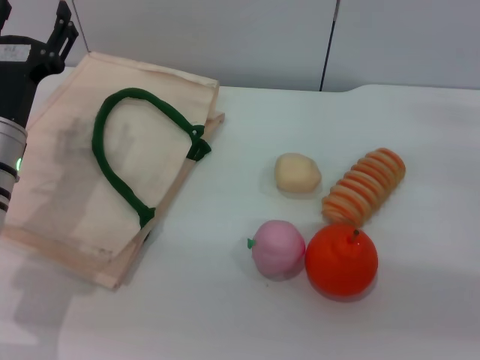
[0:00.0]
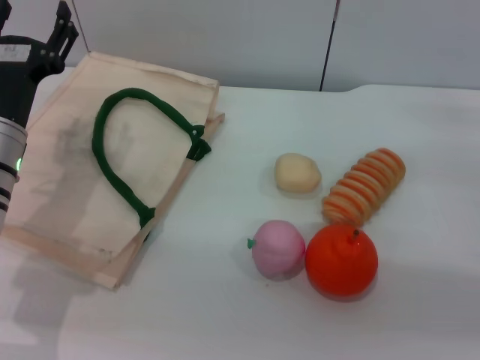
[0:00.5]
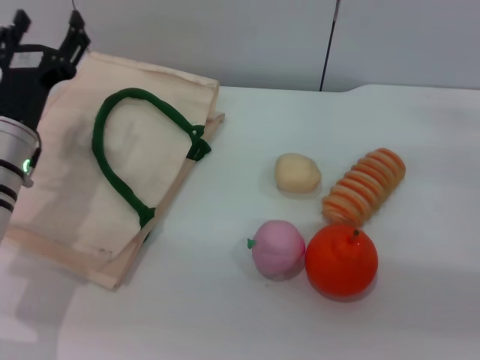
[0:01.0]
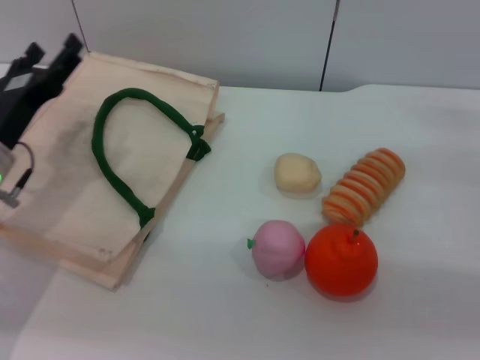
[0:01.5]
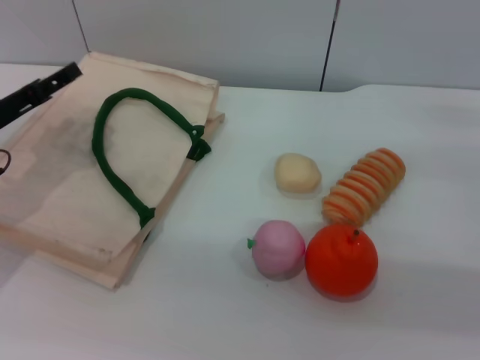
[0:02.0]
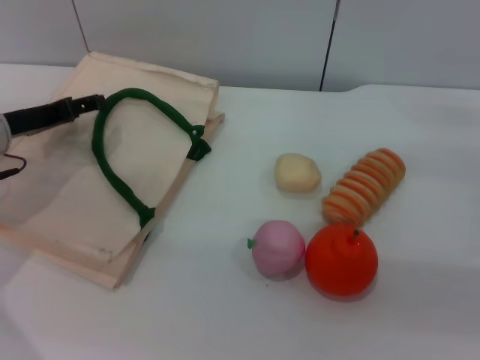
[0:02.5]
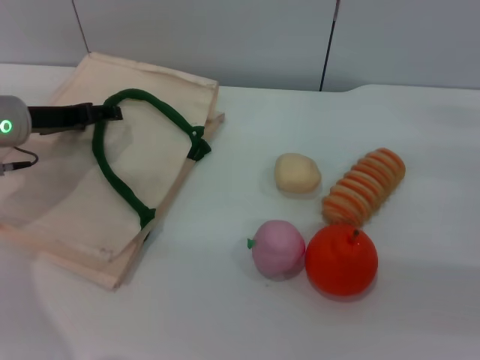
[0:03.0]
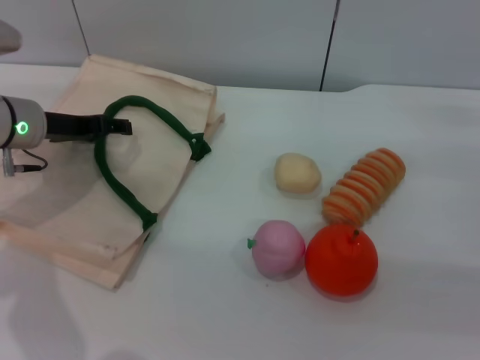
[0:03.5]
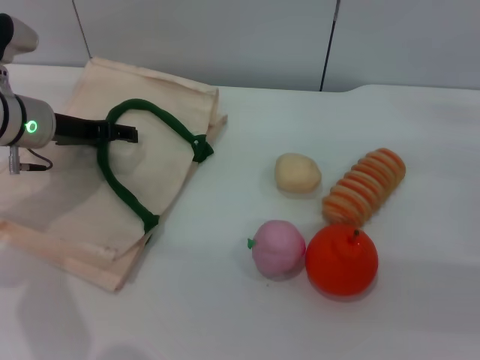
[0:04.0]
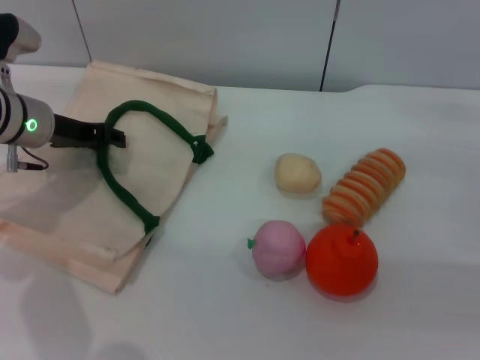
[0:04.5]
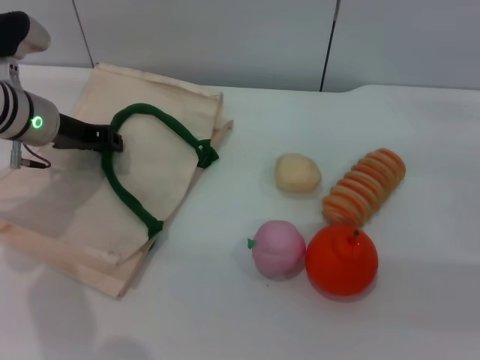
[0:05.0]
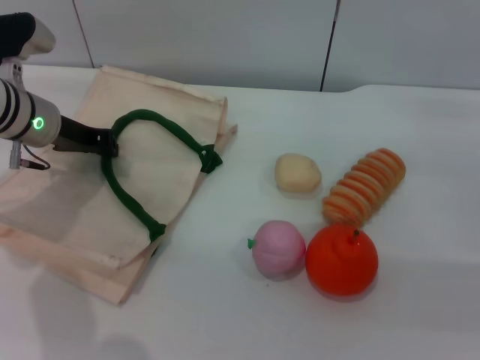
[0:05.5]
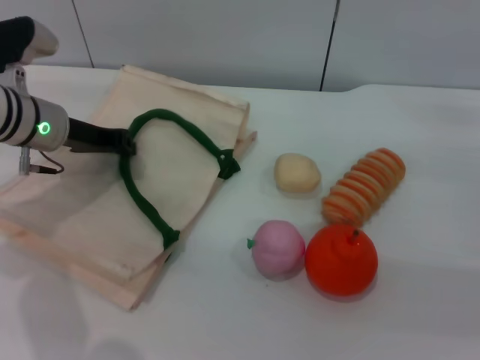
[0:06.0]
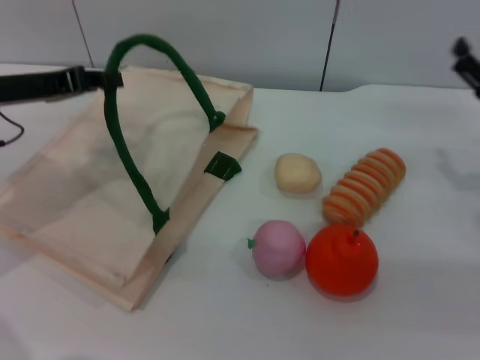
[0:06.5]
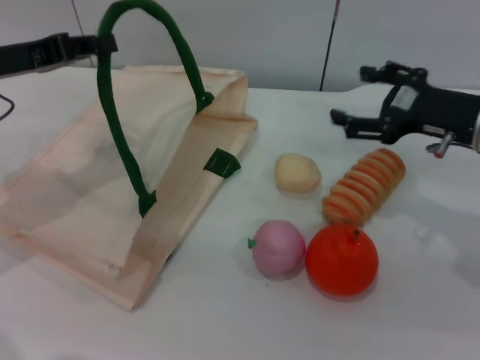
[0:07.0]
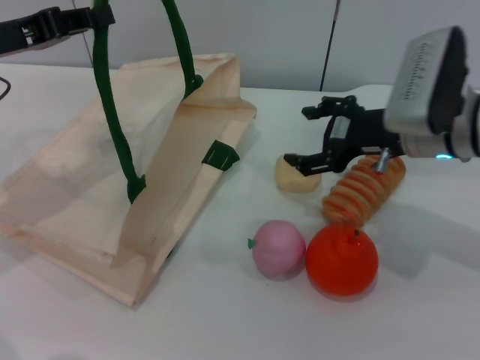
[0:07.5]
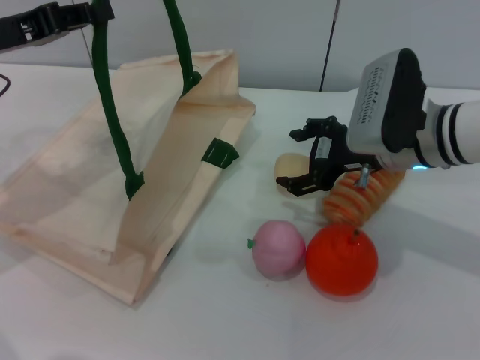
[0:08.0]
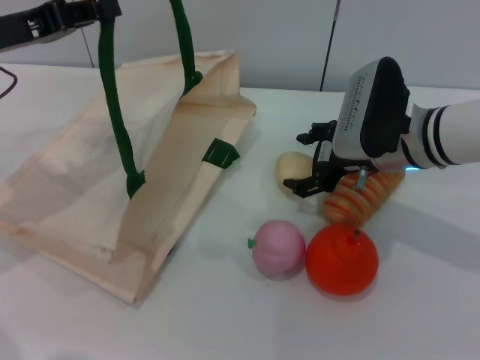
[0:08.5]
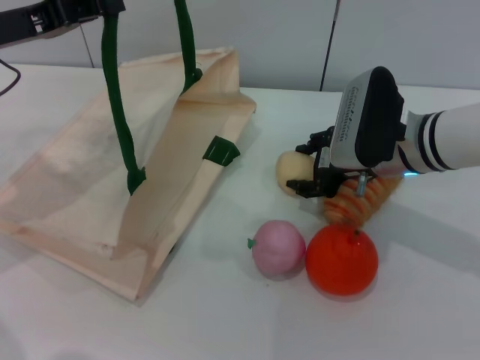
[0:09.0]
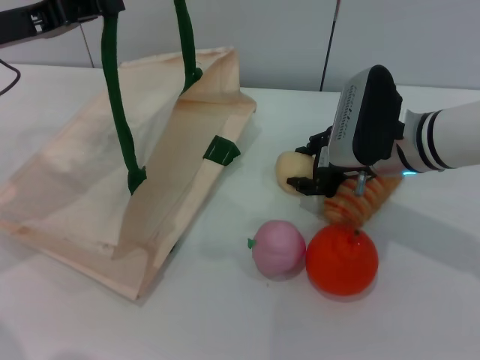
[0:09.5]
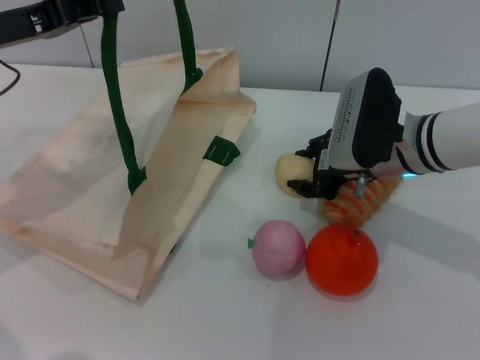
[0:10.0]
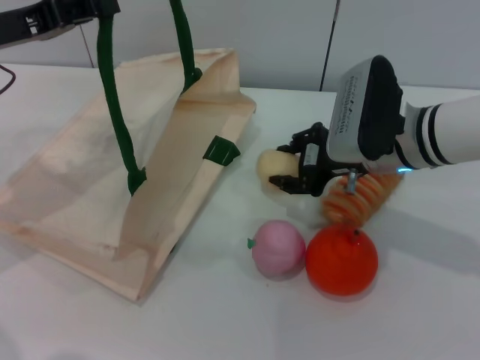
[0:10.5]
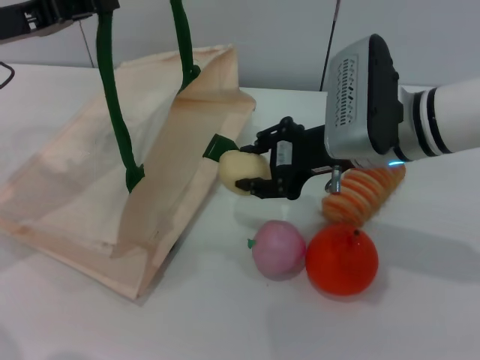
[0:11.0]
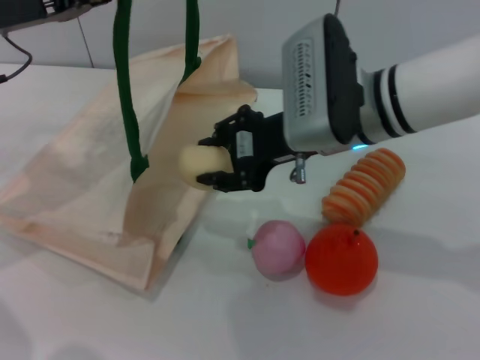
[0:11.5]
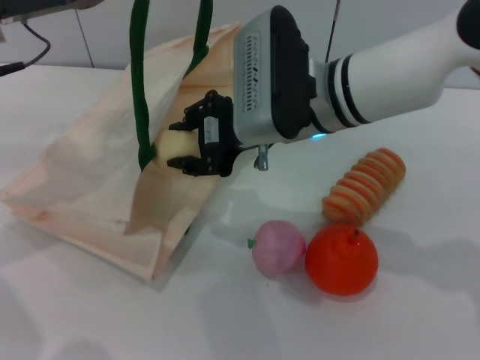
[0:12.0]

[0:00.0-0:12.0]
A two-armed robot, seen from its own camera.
Task of the whole recording: pick up the egg yolk pastry from the table and place it in the white handbag.
Step, 0:00.0 to 0:06.0: Lift the woven bag with the left gripper to open it.
Step, 0:06.5 to 0:10.5: Pick up the egg yolk pastry with the right gripper.
0:00.0 to 0:02.0: The left gripper heads to the left, covering roughly 10 cm.
0:02.0 to 0:04.0: The left gripper travels forward and to the right by roughly 10 cm.
0:04.0 to 0:06.0: The left gripper closes its fingers.
0:06.0 to 0:08.0: The right gripper travels to the left by approximately 15 cm. Meanwhile the left gripper moves upward, to the left and backward, some 10 cm.
0:08.0 to 0:10.0: The right gripper closes its fingers.
0:10.0 to 0:12.0: The right gripper goes some 15 cm to the left and upward.

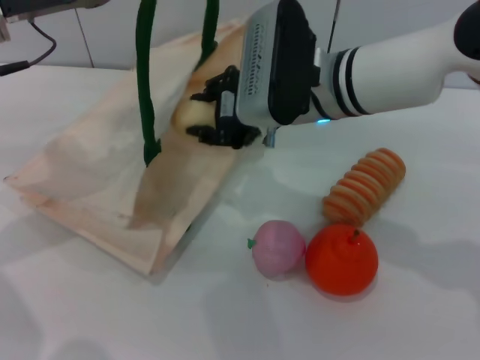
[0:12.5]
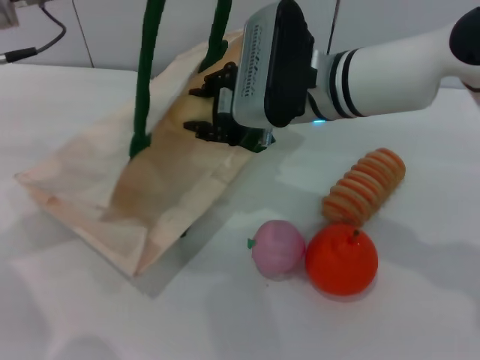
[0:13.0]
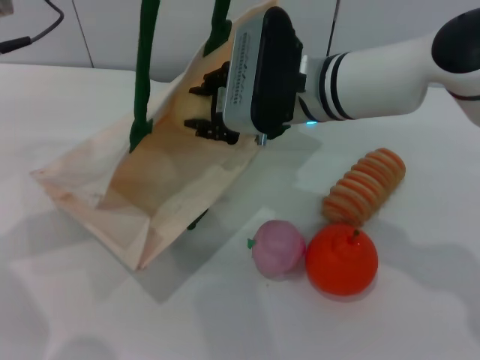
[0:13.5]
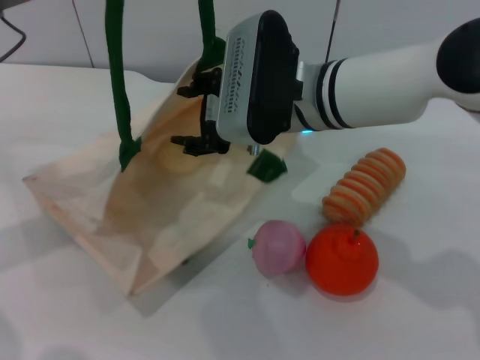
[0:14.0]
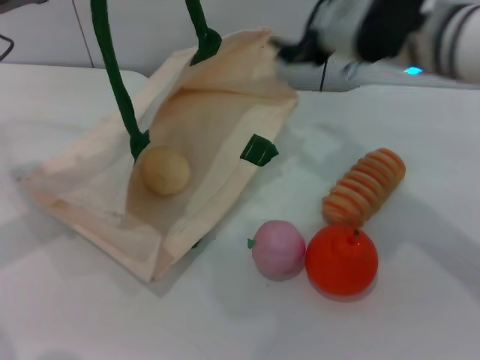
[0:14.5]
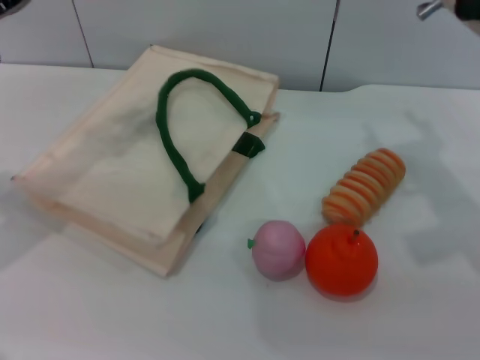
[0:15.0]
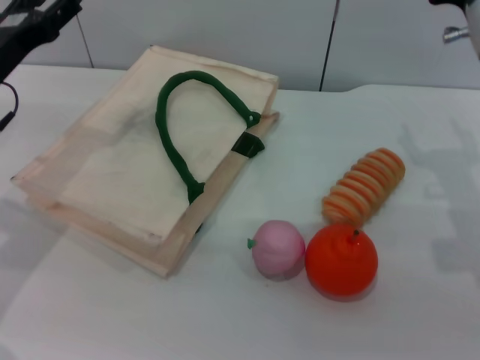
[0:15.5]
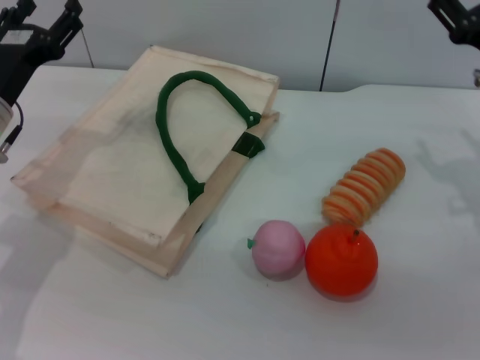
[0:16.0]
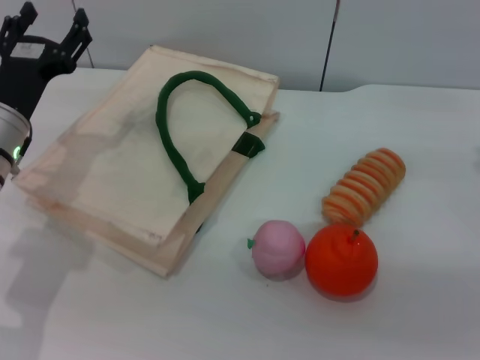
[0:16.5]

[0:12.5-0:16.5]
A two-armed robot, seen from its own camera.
Task of the whole recording: pick up the egg yolk pastry from the table and place it in the white handbag.
Step, 0:14.5 to 0:15.5: Lower the woven bag with the left gripper to close it.
0:12.5 to 0:14.5: The right gripper travels to the right by about 10 cm, and opens.
0:14.5 to 0:16.5: The left gripper is displaced downward by roughly 10 cm, and opens up; the right gripper is displaced to the right and downward by roughly 20 cm.
